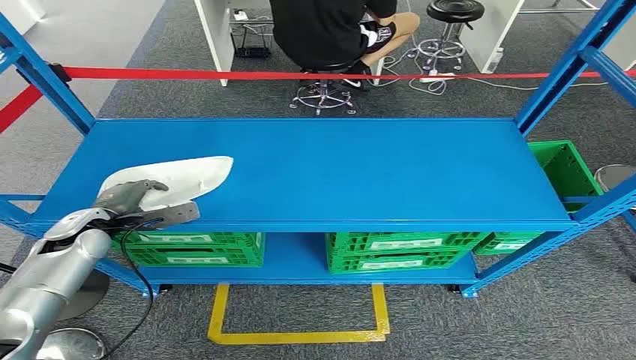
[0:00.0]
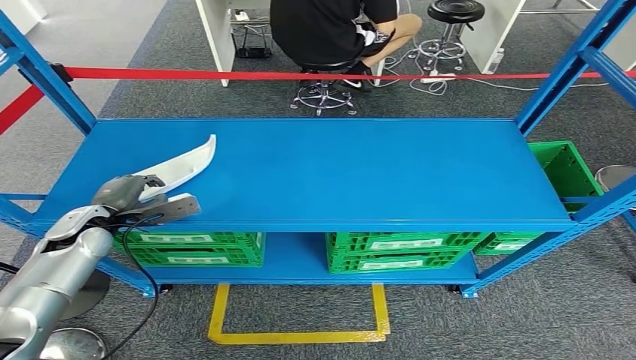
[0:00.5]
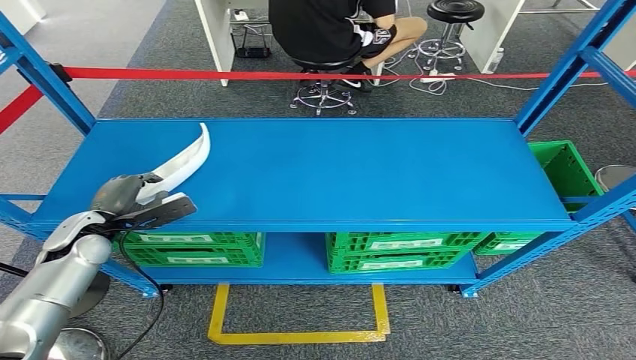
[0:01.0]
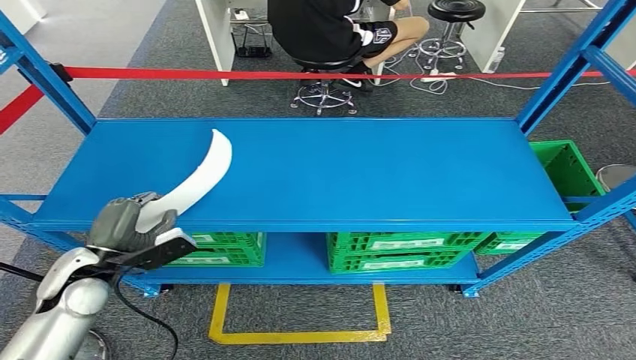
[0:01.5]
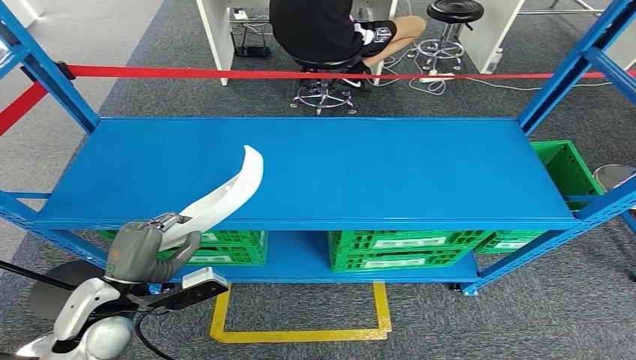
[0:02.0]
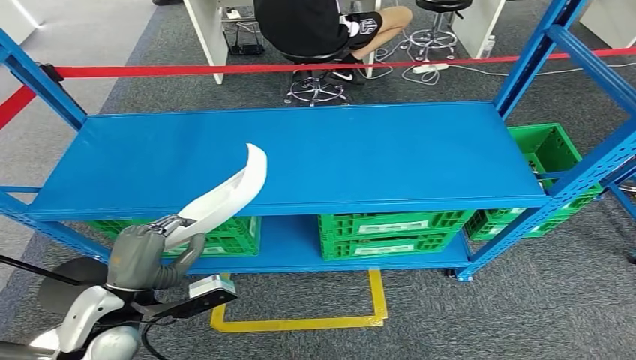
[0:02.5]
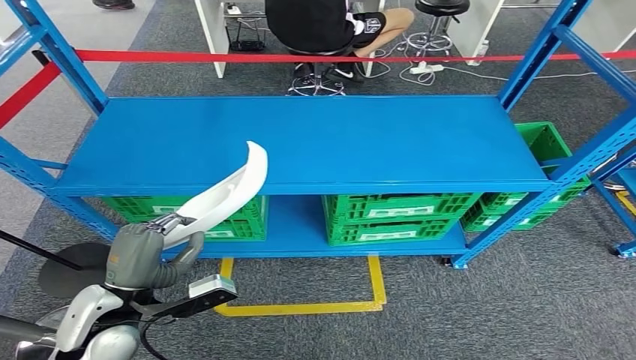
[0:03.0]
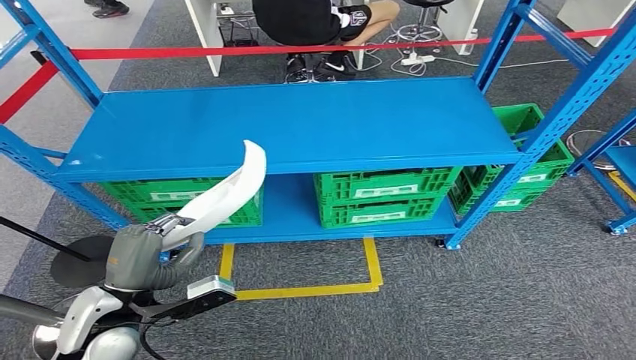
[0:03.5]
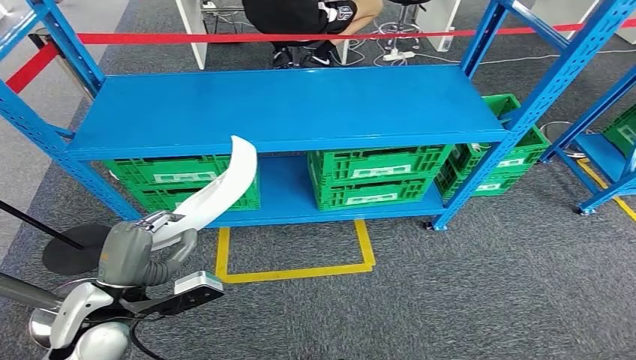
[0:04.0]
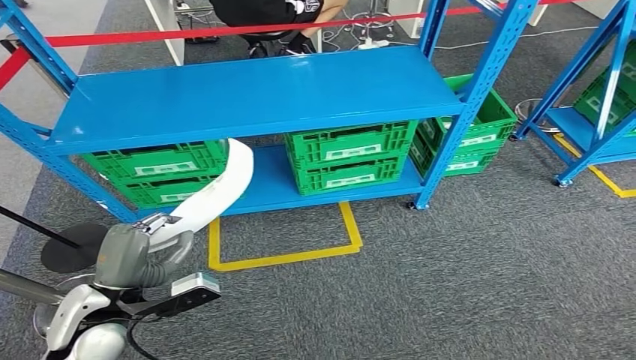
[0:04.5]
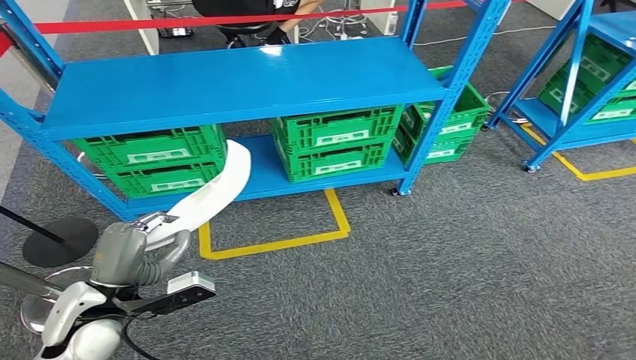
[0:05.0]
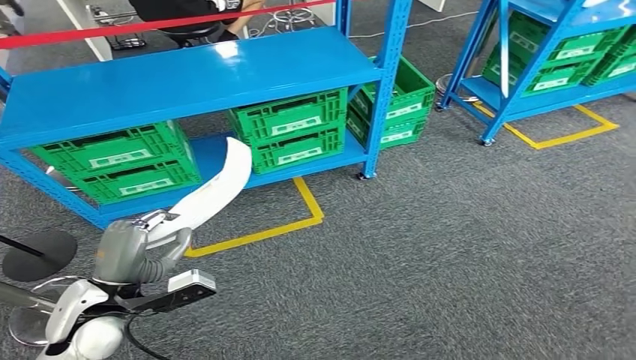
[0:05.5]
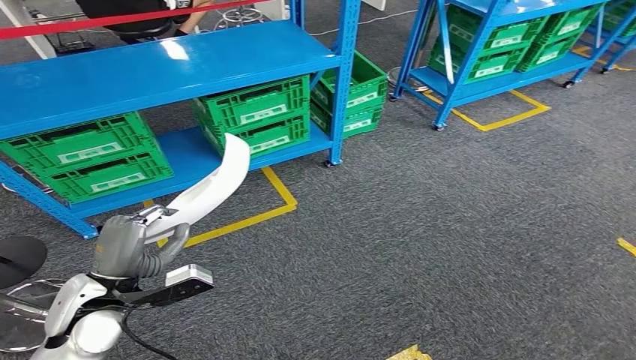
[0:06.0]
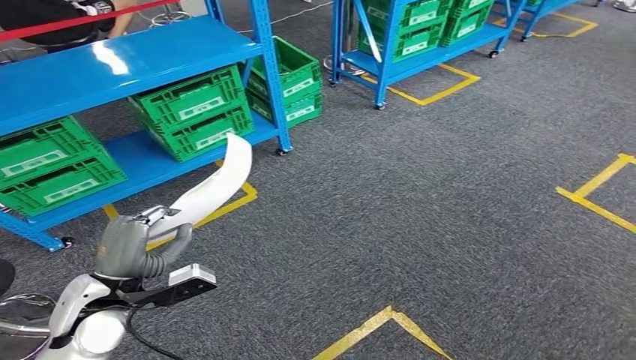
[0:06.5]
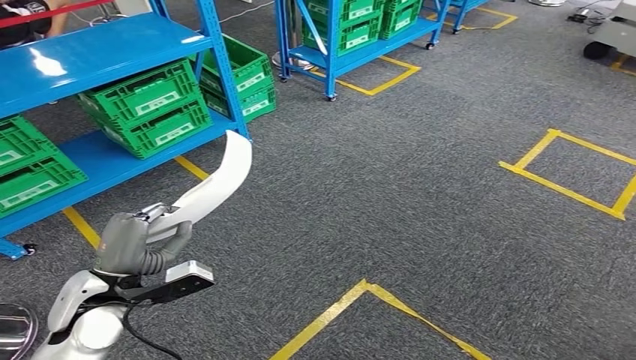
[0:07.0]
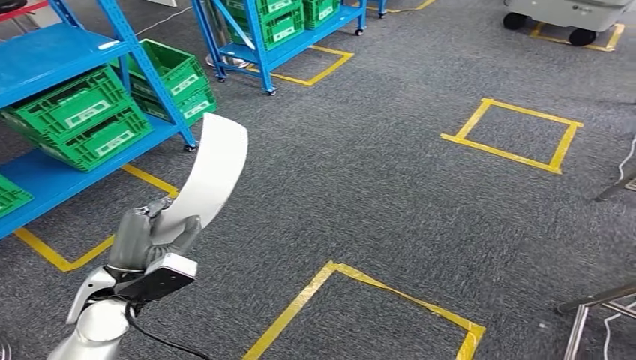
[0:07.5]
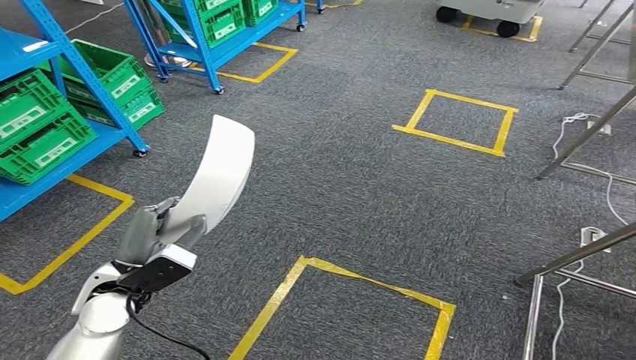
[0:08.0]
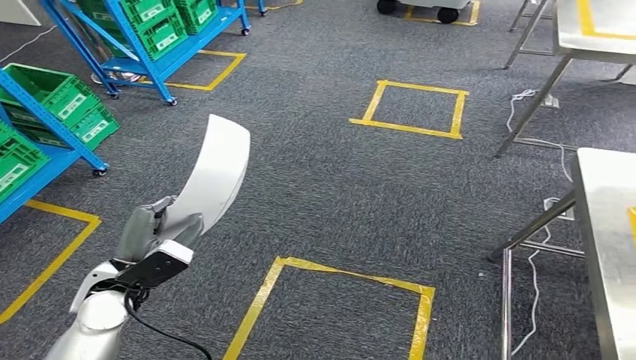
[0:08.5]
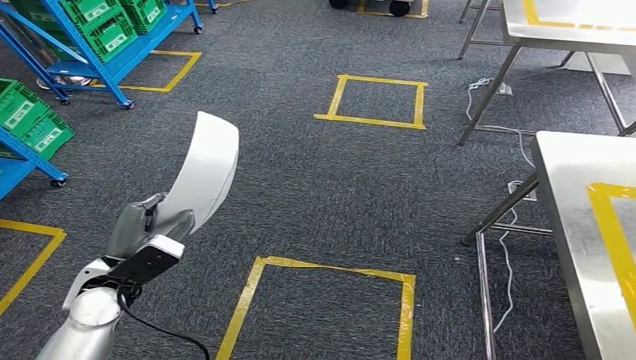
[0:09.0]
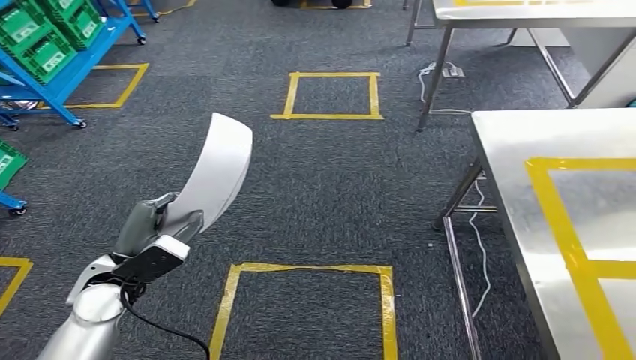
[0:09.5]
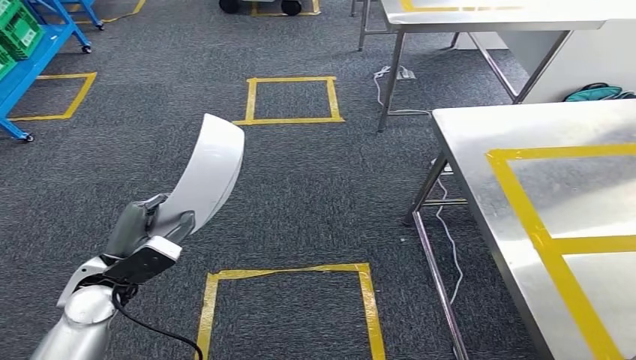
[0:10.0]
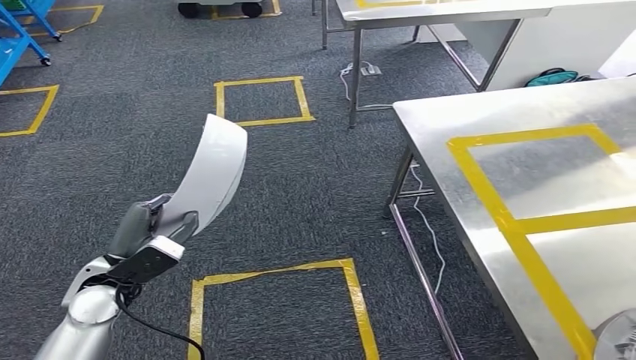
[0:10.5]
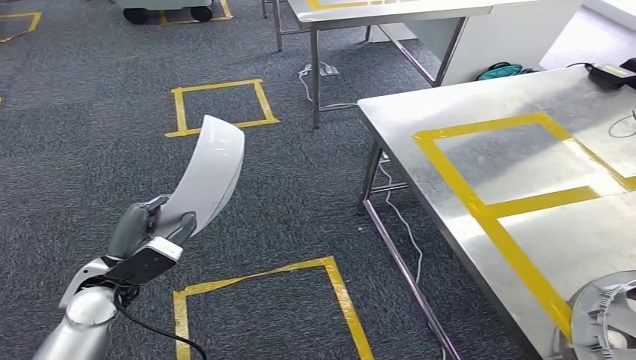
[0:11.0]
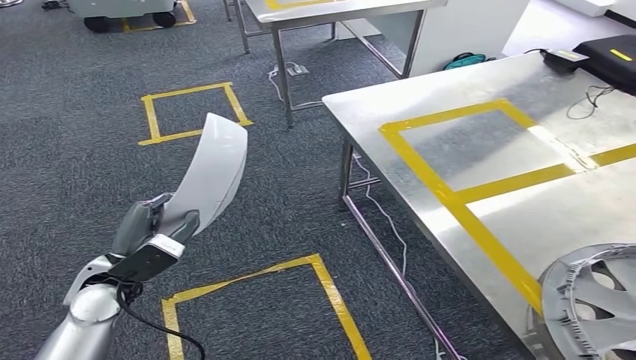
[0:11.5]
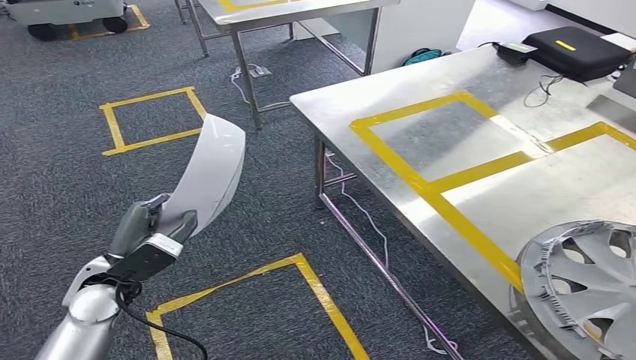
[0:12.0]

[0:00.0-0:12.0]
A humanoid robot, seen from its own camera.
Step, 0:00.0 to 0:02.5: Pick up the small component from the shelf.

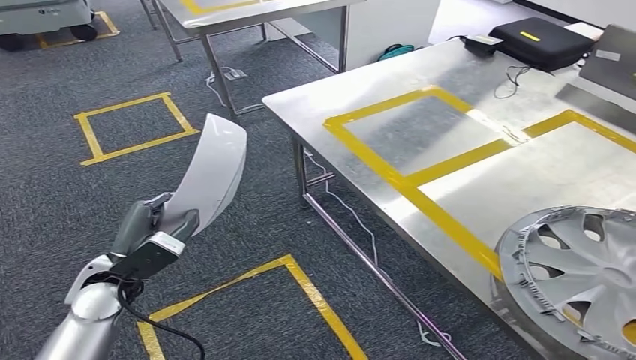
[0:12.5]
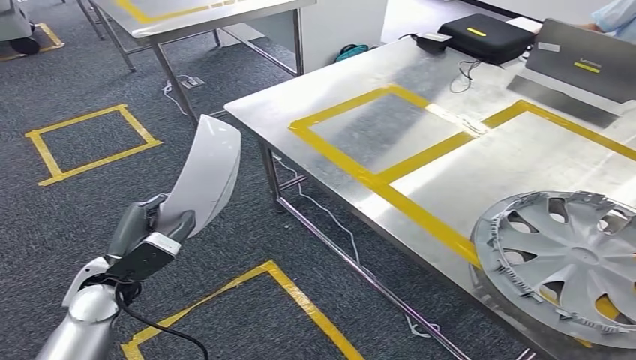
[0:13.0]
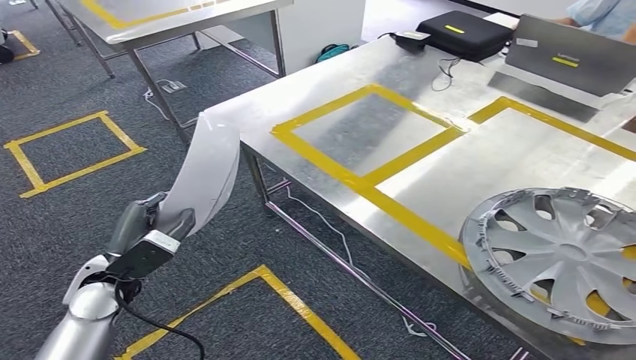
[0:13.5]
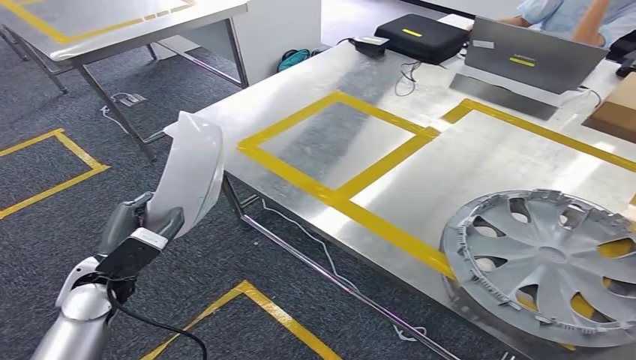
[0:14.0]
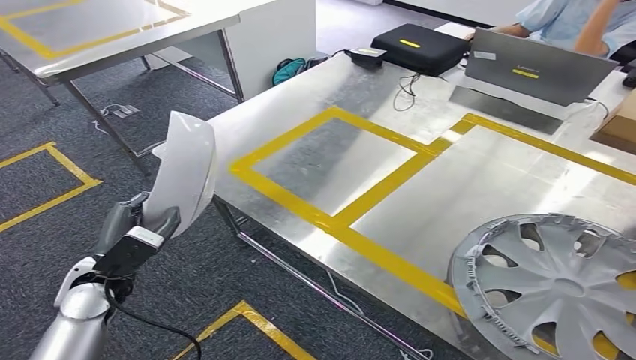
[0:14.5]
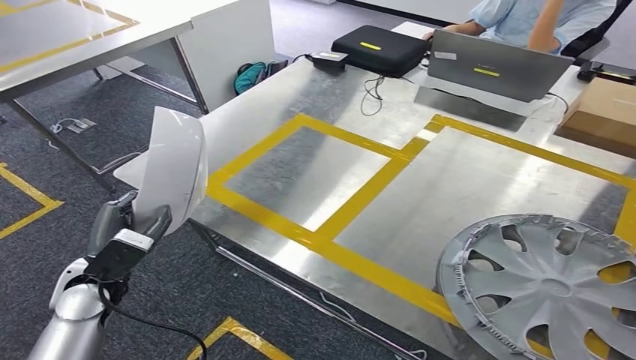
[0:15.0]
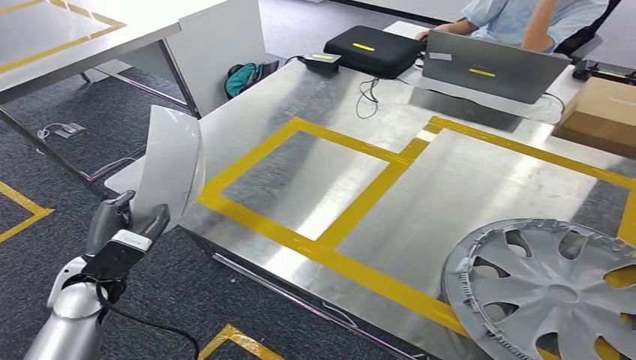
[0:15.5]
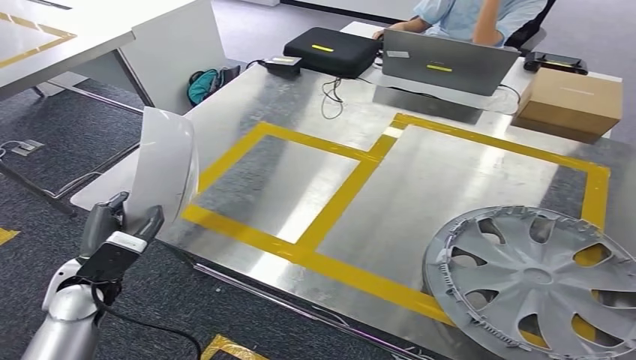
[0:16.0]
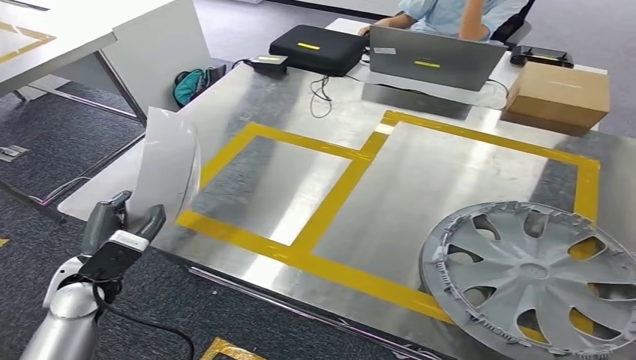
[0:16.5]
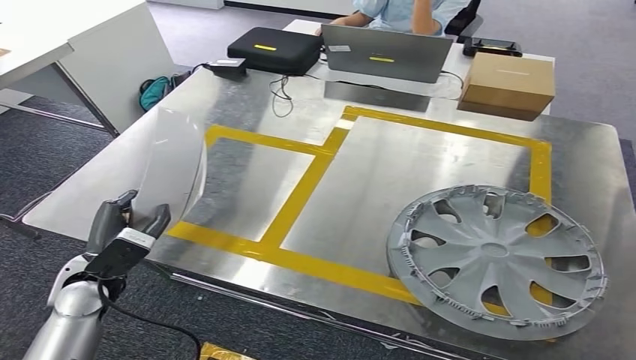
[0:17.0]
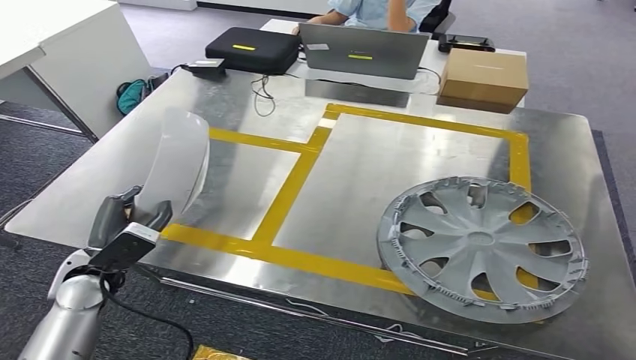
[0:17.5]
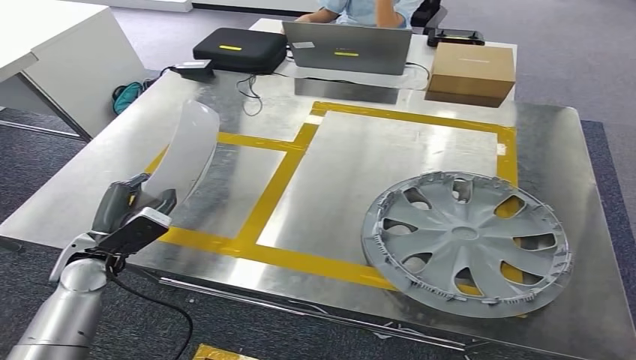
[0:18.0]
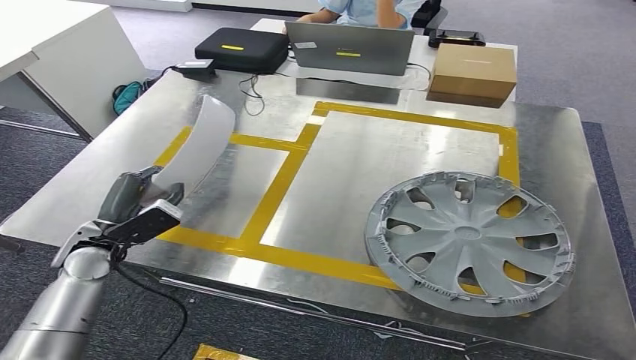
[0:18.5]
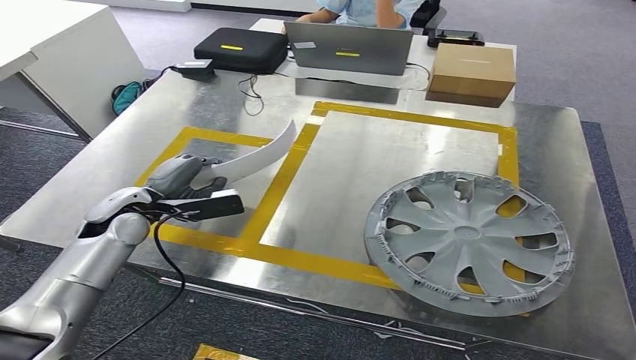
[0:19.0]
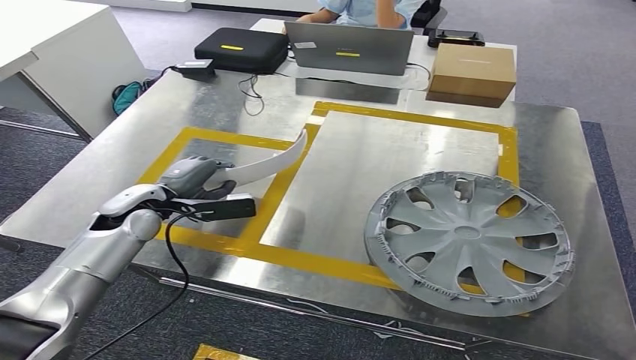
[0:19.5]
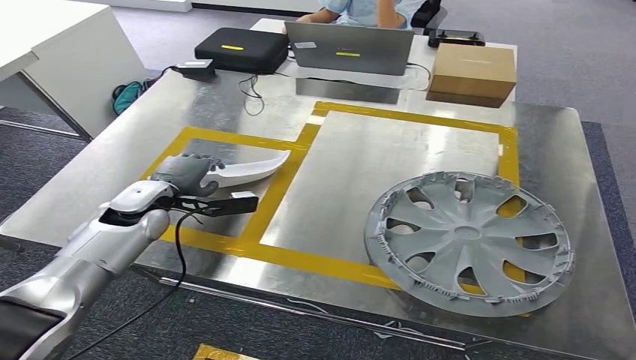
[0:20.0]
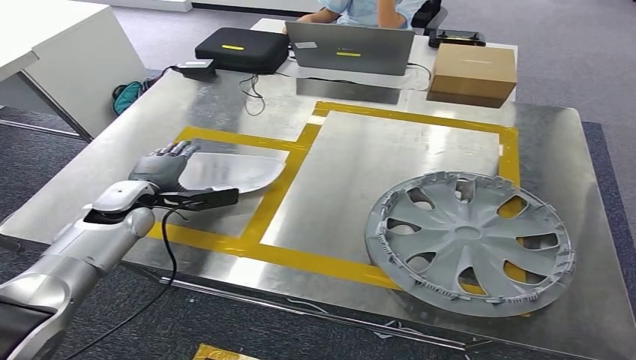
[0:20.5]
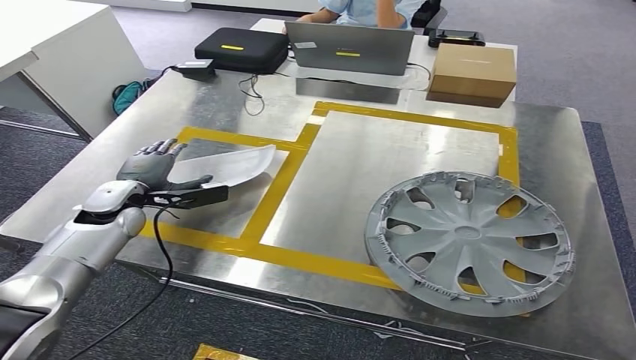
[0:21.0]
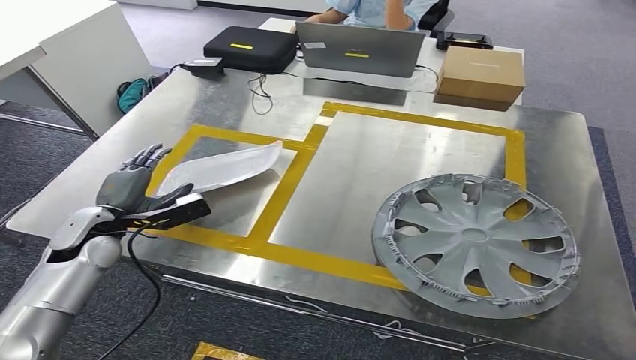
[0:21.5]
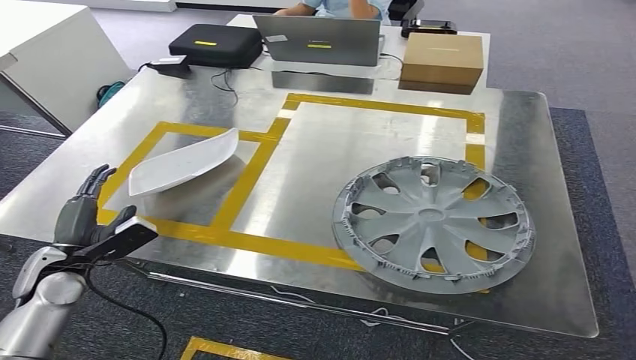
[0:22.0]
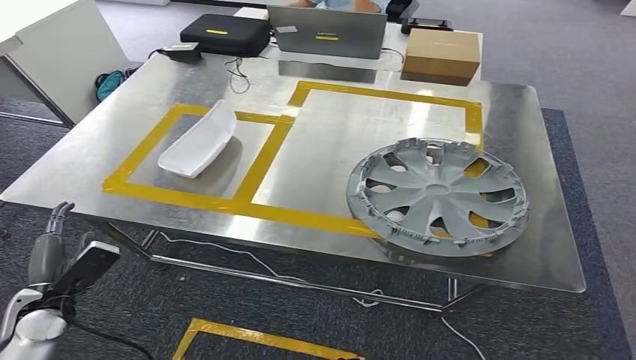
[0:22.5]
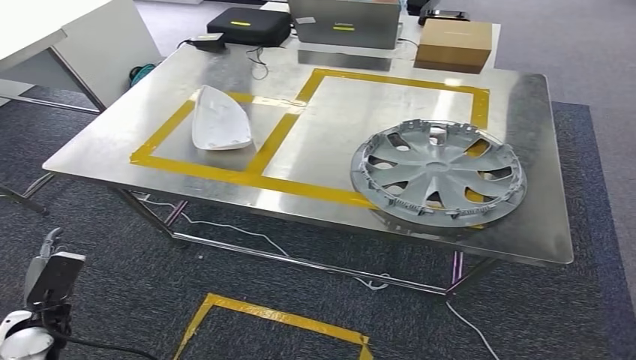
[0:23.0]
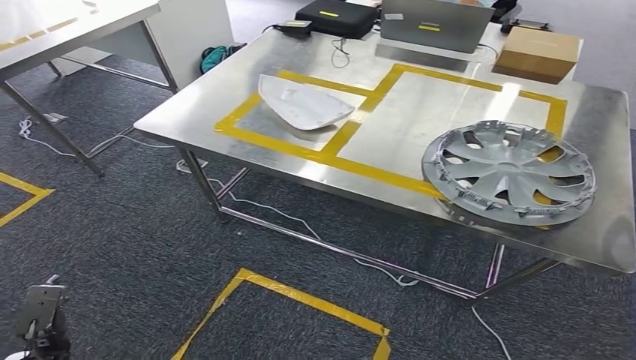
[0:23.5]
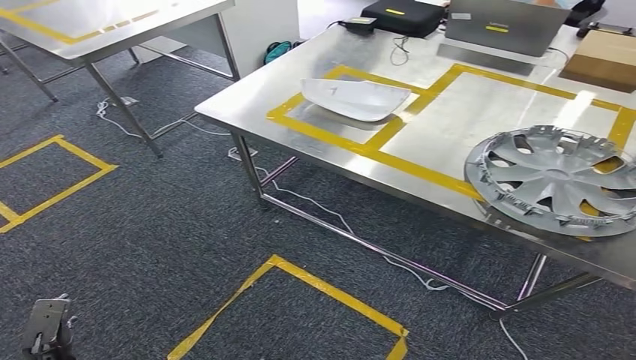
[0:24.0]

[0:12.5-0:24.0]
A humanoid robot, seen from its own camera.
Step, 0:14.5 to 0:22.5: Insert the small component into the corresponding slot on the workbench.
0:18.5 to 0:20.0: The left hand heads forward, covering approximately 10 cm.
